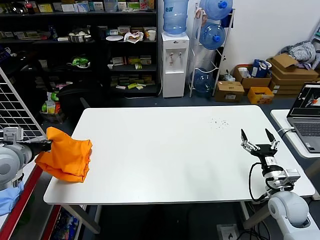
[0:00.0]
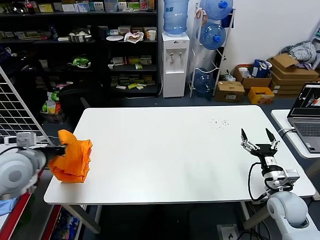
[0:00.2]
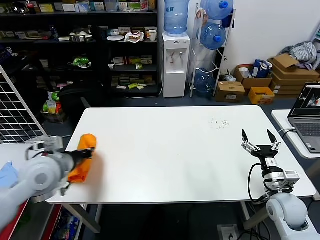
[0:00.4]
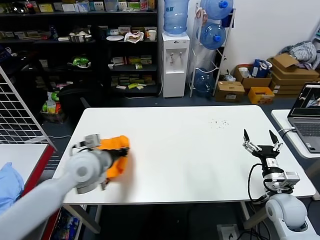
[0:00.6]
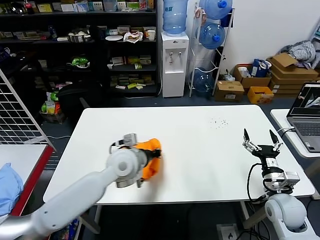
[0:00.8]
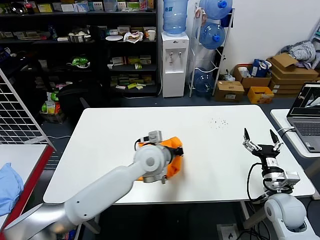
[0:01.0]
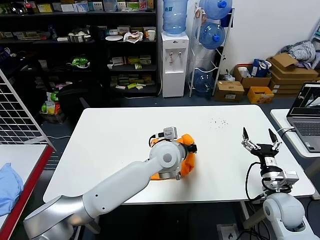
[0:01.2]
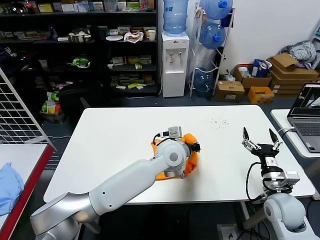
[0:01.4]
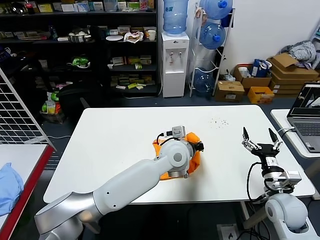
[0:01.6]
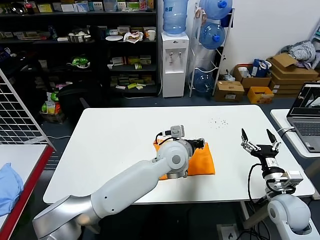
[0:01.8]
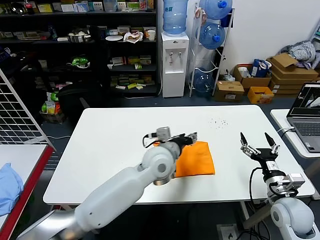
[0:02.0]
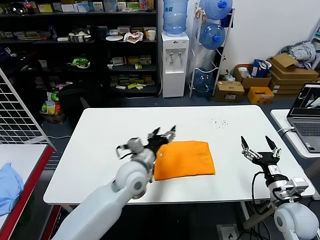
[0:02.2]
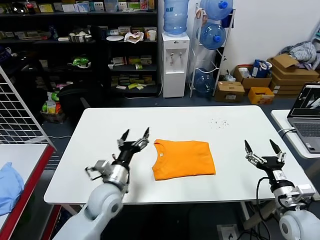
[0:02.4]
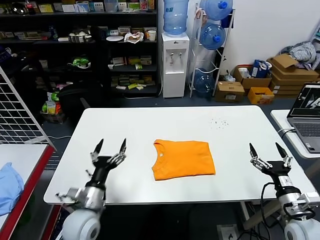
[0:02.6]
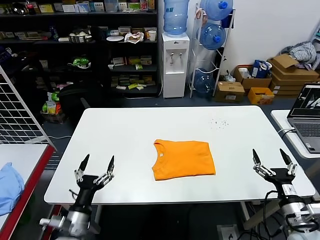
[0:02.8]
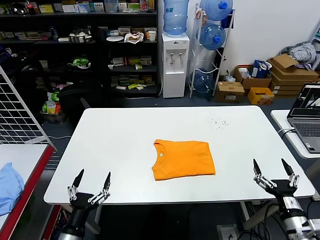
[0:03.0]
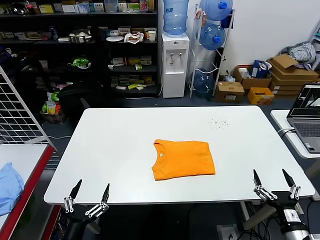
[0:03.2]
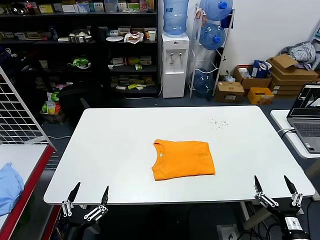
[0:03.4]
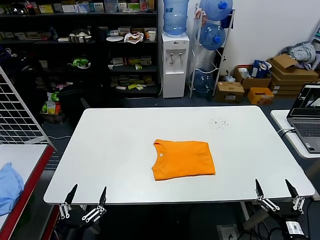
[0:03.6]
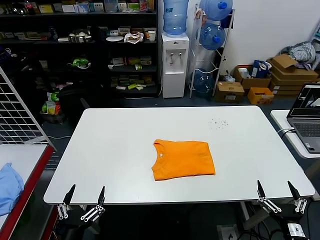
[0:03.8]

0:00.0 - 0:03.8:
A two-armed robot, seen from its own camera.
Task of the whole recording: fold and organize the clothes.
0:00.0 - 0:01.2: The left gripper heads to the right, covering about 40 cm.
0:01.2 - 0:02.6: The left gripper goes about 30 cm to the left, backward and downward, and opens up; the right gripper moves backward, some 5 cm.
0:02.6 - 0:03.8: The right gripper shifts about 15 cm backward, while the left gripper heads backward, covering approximately 20 cm.
